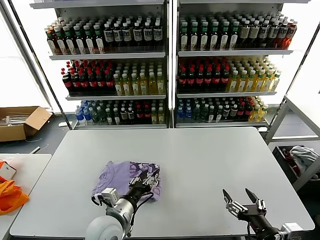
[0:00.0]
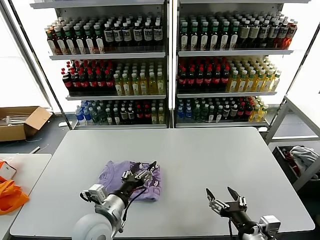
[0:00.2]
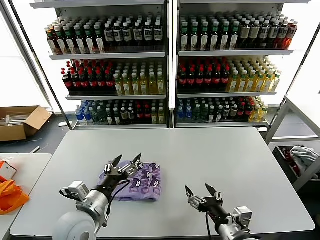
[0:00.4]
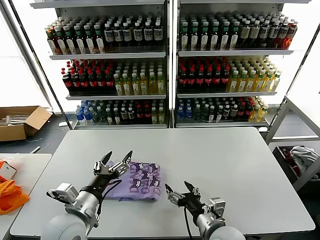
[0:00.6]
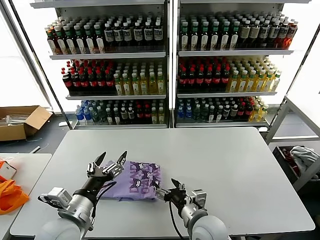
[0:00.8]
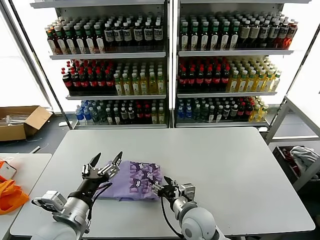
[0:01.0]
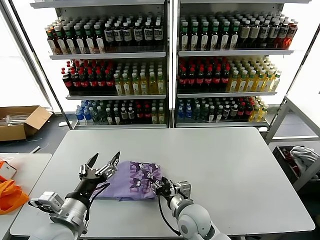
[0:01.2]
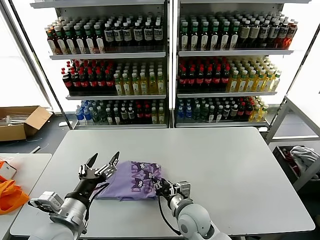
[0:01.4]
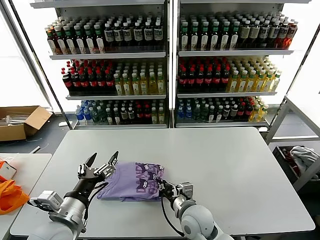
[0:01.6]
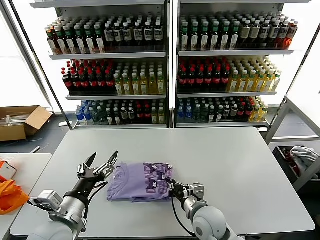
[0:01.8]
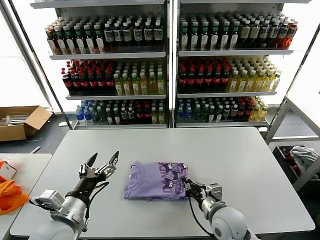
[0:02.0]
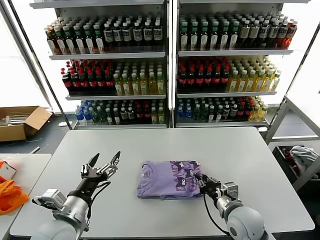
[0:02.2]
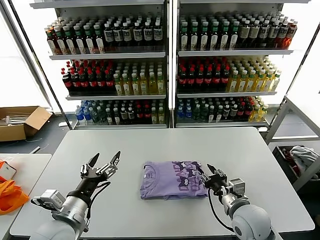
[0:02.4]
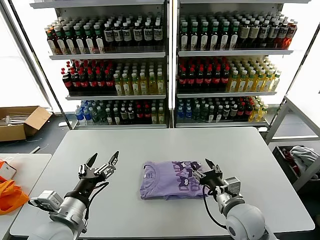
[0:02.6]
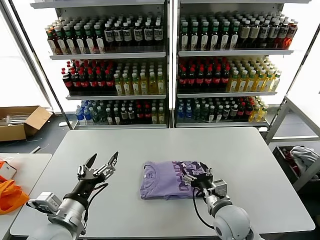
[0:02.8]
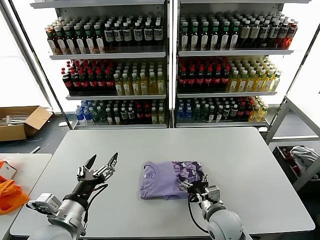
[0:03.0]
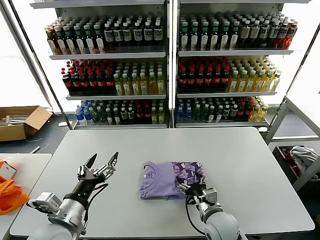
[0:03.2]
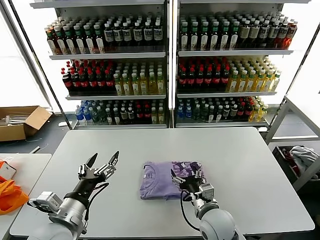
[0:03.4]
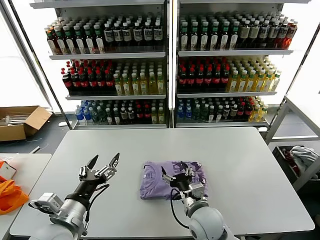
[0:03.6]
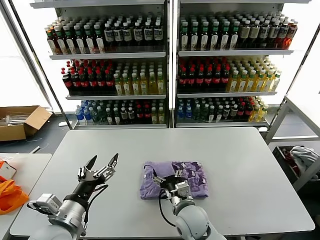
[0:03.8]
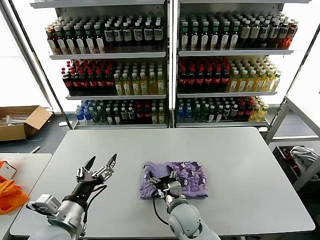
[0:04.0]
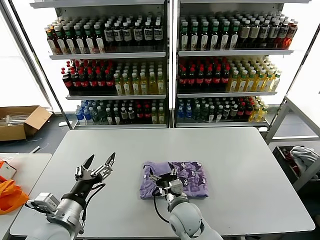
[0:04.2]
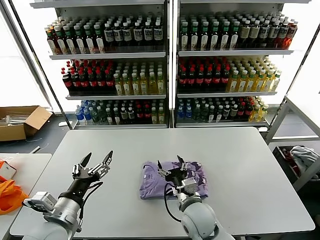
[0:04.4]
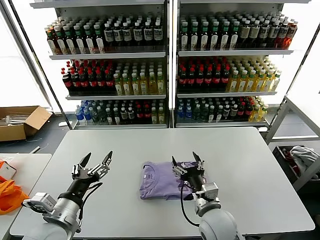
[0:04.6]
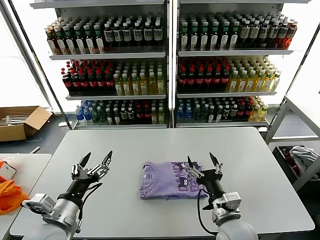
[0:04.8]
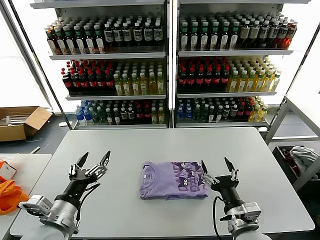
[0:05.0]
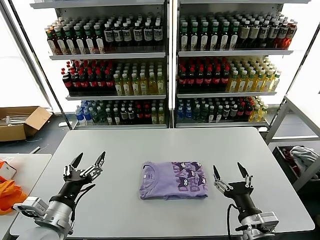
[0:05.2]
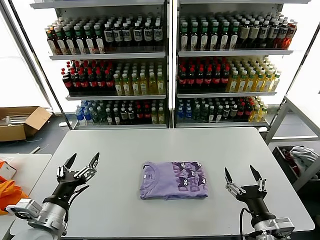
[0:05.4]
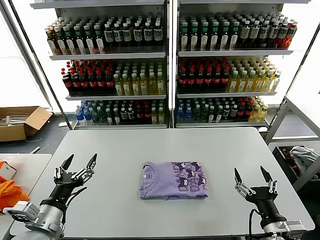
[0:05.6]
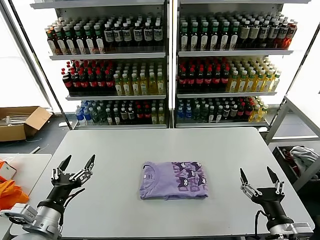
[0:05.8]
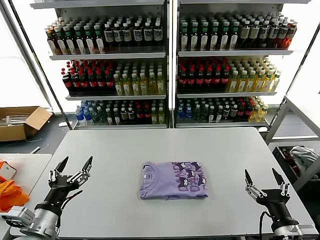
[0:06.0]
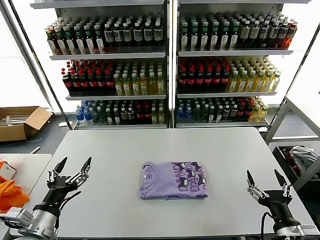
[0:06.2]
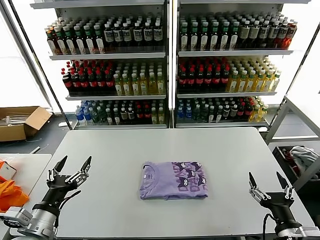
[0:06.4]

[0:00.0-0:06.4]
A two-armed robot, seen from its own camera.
Task of the whole recording: fold and organize the clothes.
Step, 0:00.2 to 0:04.2: Drag the clothes to the center of the table.
0:00.0 to 0:01.6: The left gripper travels to the left and upward by roughly 15 cm, and opens its fingers. Meanwhile the right gripper heads to the left, forward and downward, covering about 25 cm, and closes its fingers.
0:01.6 to 0:03.2: The right gripper shifts some 10 cm to the right, and opens its fingers.
0:03.2 to 0:04.8: The right gripper goes roughly 5 cm upward, and moves about 10 cm to the left and comes back.
0:04.8 to 0:06.4: The left gripper ends up about 5 cm from where it was. The right gripper travels to the right and backward by roughly 20 cm.
